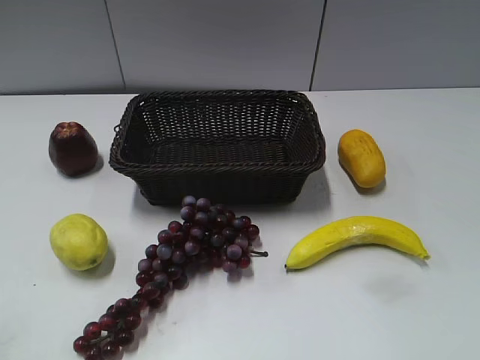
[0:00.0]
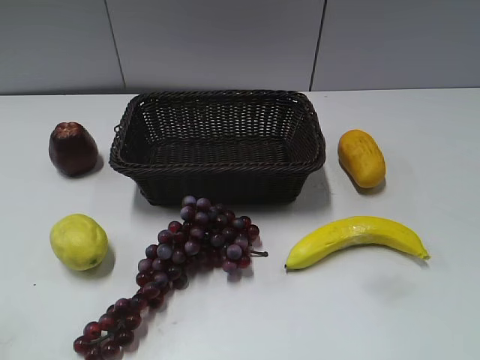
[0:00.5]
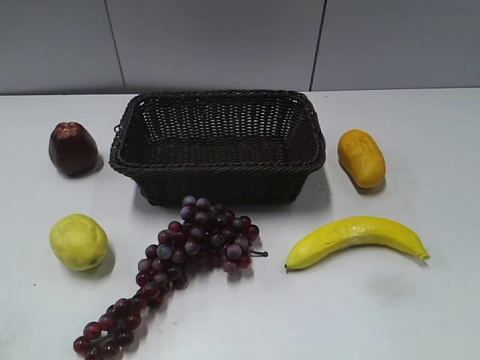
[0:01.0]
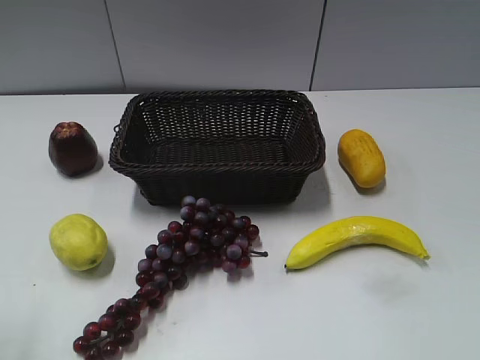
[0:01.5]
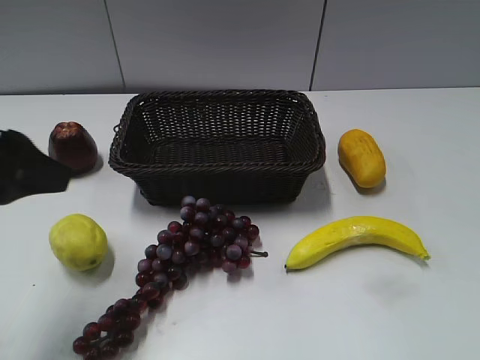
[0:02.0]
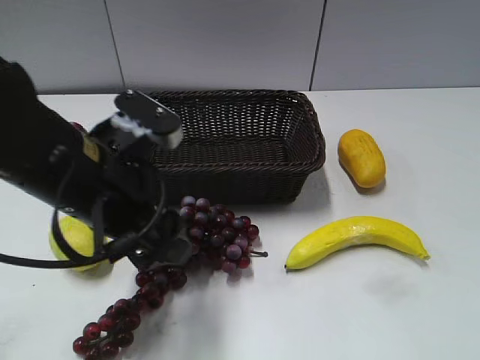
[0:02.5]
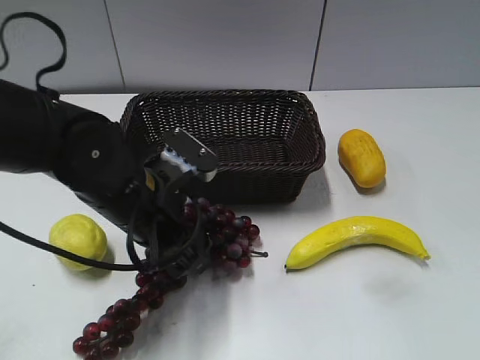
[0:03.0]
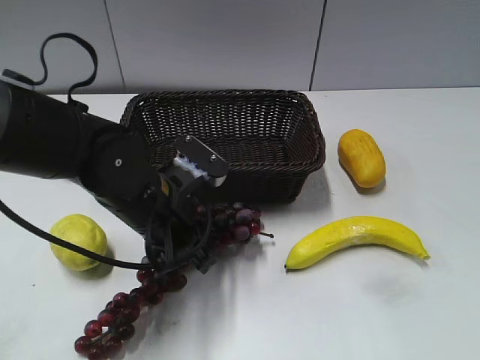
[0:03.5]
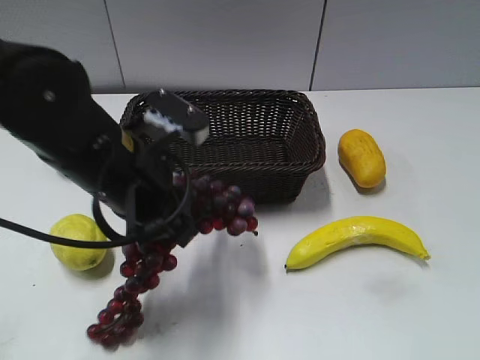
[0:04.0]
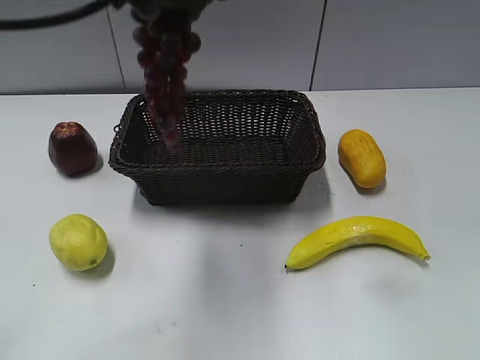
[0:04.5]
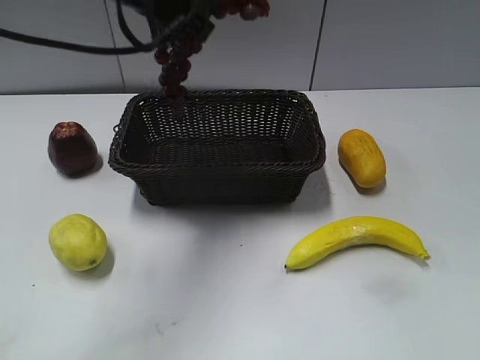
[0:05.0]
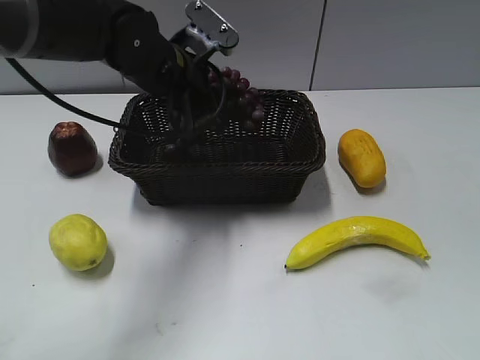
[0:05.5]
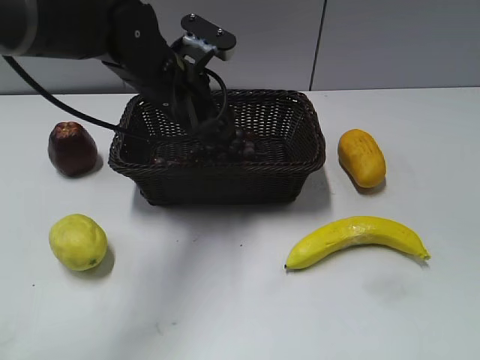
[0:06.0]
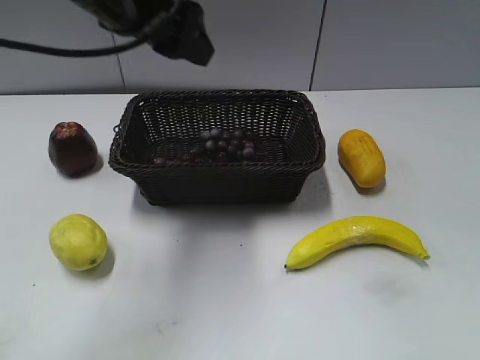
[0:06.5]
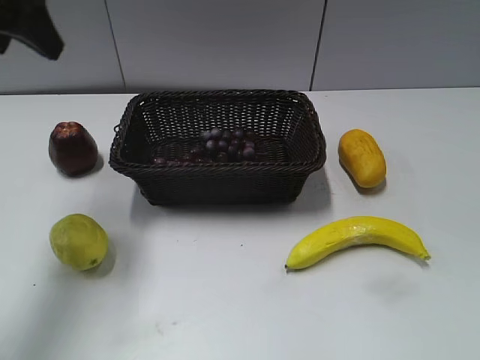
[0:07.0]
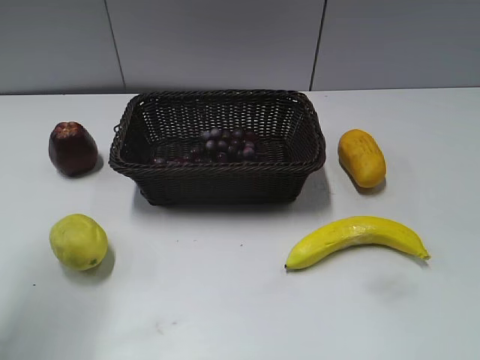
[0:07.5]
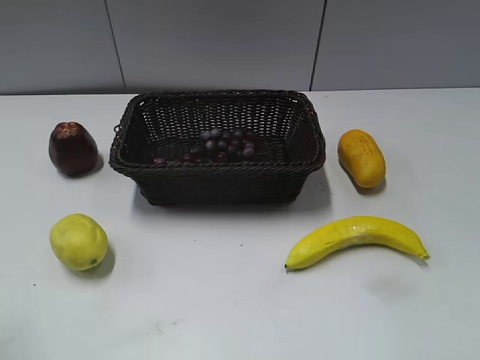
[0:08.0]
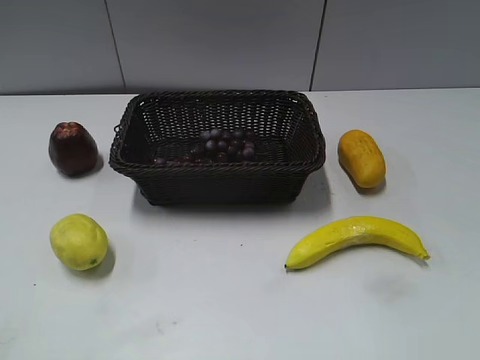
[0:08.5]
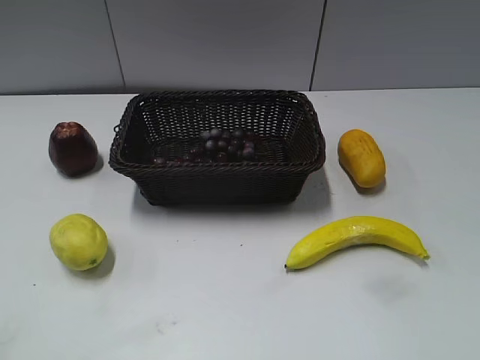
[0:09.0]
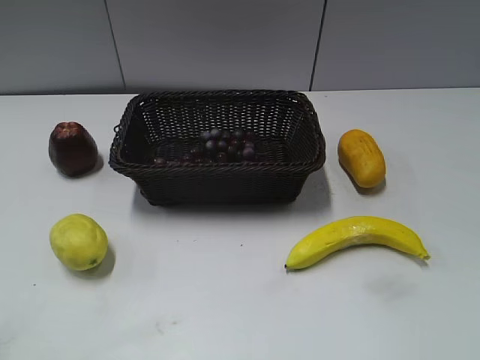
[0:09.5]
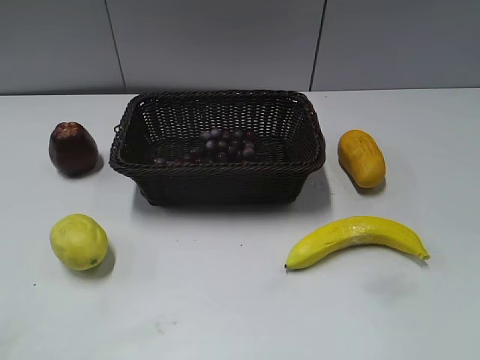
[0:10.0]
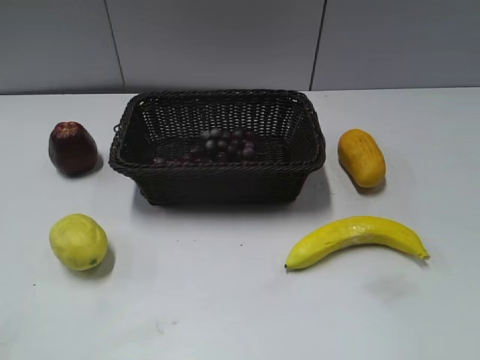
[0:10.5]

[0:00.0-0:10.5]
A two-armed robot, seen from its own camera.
Step, 0:02.0 to 0:03.0: Grasp the grape with left gripper.
Step, 0:04.0 to 0:05.5: Place the grape in the basket with left gripper.
0:02.0 to 0:04.0: The left gripper travels to the right, downward and forward by about 20 cm, and closes up.
0:04.0 to 0:06.5: The left gripper goes up and down, about 20 cm each way, reversing 2 times, and opens.
0:06.5 to 0:08.5: The left gripper shifts roughly 35 cm backward and to the left.

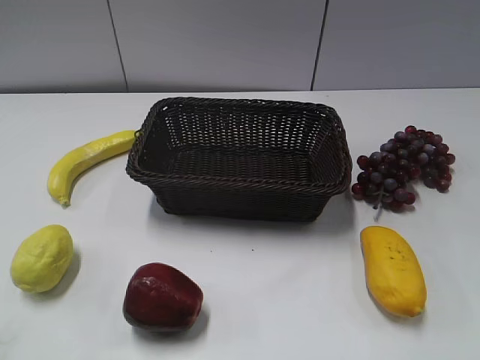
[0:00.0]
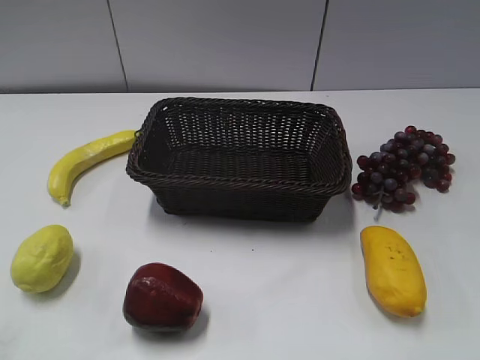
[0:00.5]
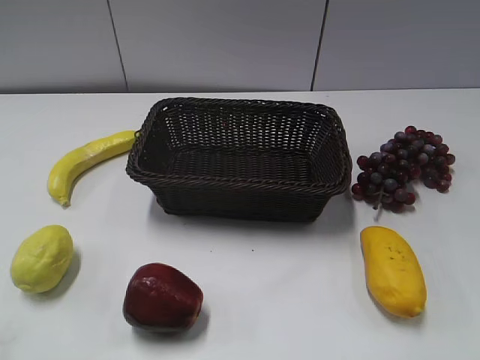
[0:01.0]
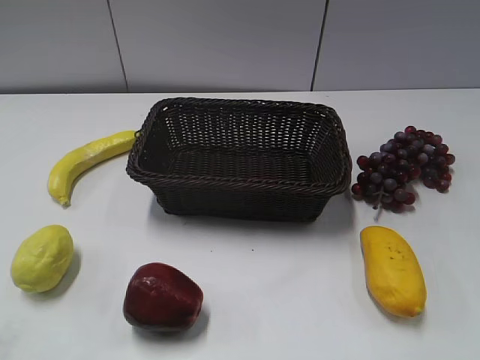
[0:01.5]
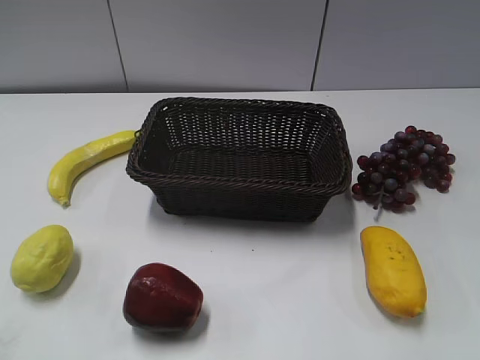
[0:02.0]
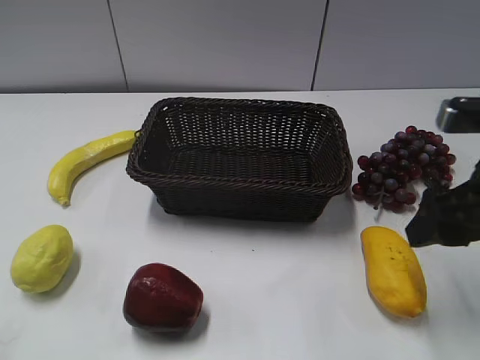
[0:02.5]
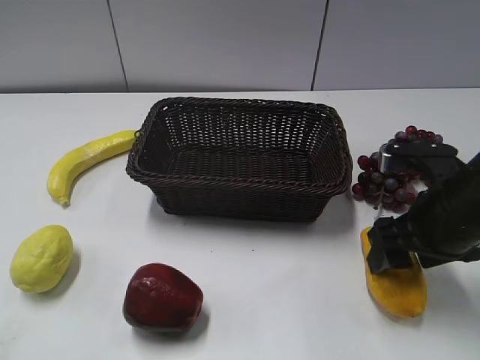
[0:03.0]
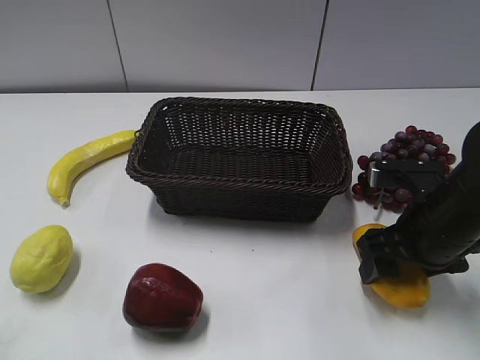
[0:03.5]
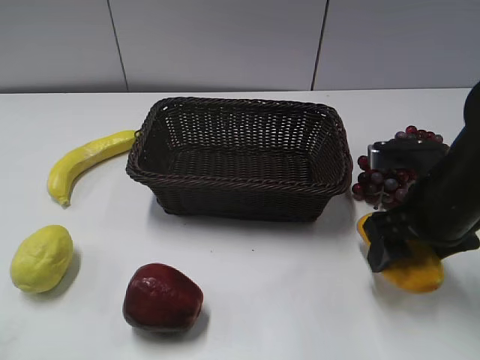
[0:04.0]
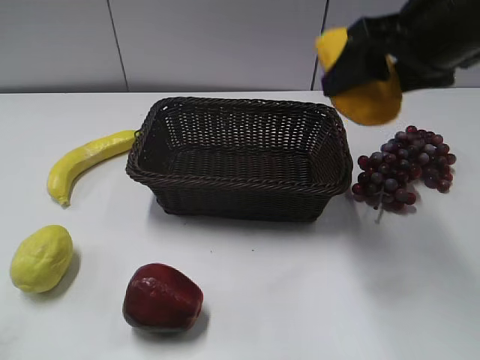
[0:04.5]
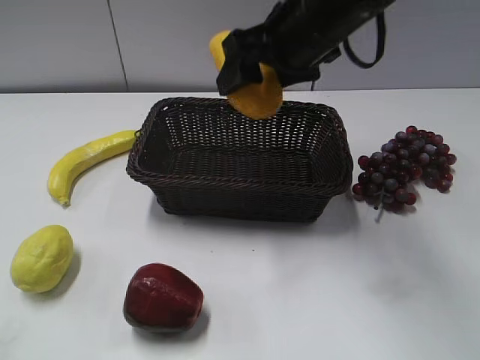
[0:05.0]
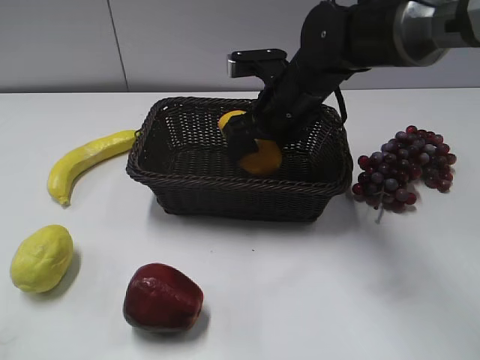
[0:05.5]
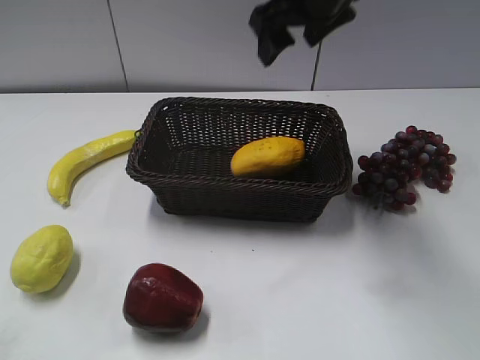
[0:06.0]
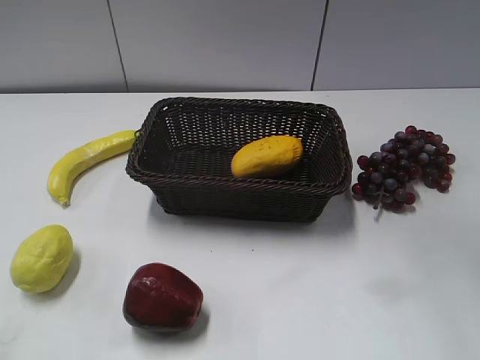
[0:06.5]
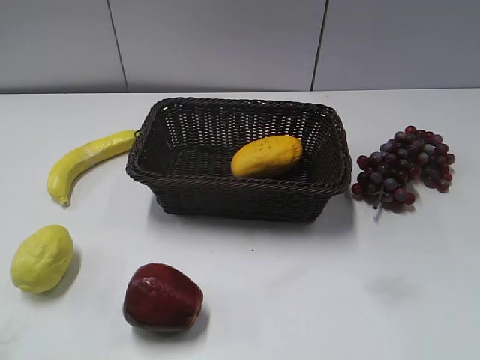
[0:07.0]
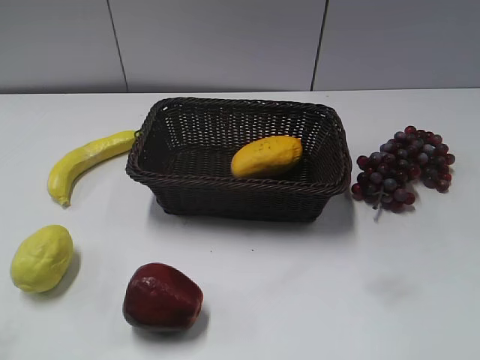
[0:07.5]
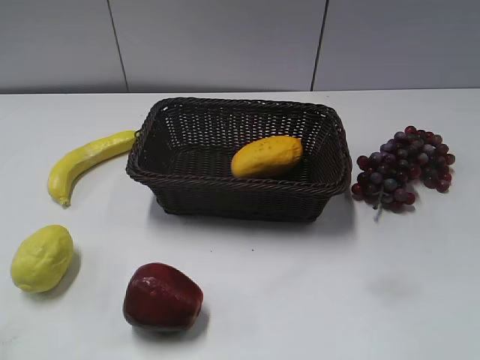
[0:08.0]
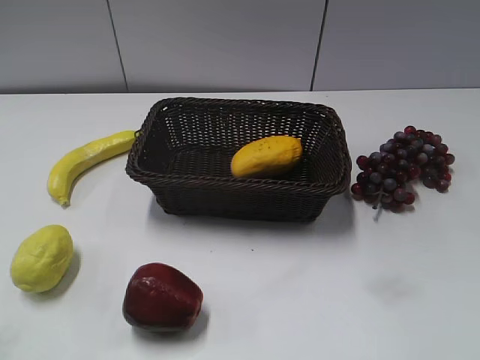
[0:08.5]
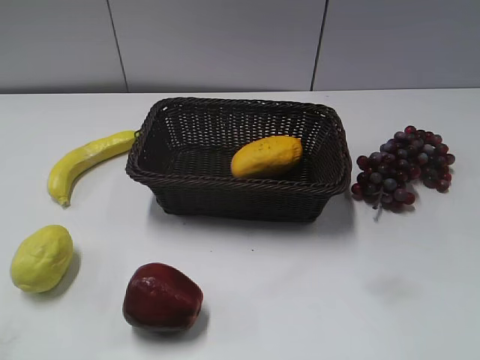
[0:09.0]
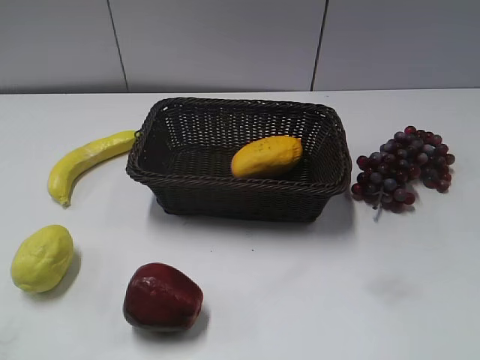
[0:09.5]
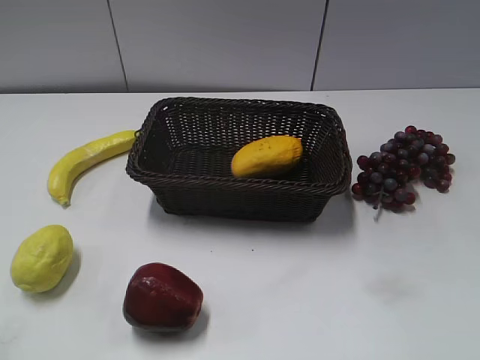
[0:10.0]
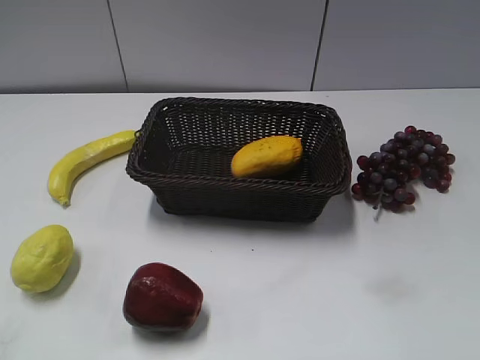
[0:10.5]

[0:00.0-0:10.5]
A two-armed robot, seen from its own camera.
Step, 0:02.5 to 0:03.5: Grasp the mango with right gripper.
Step, 0:04.0 to 0:05.5: Place the mango in the basket with right gripper.
0:02.0 to 0:04.0: The right gripper shifts approximately 20 cm downward, forward and to the left, and closes up.
0:04.0 to 0:06.5: The right gripper goes up and down, some 30 cm each way, reversing 2 times, and opens and closes again.

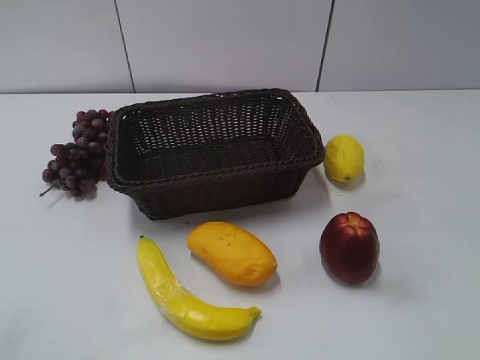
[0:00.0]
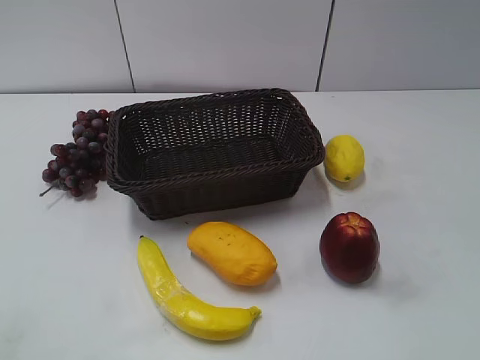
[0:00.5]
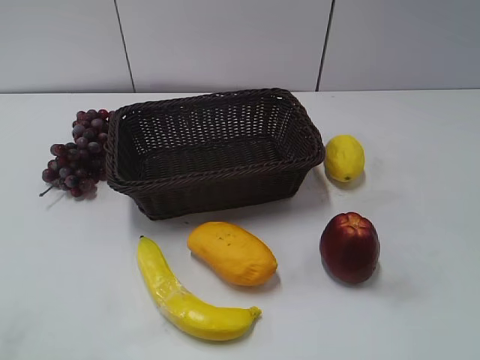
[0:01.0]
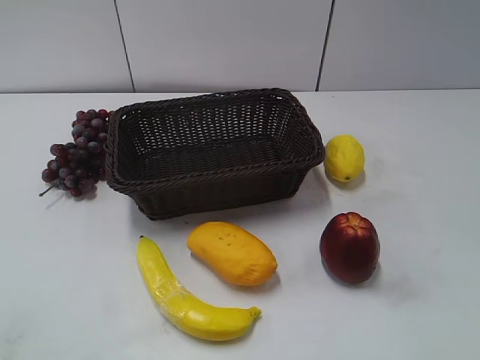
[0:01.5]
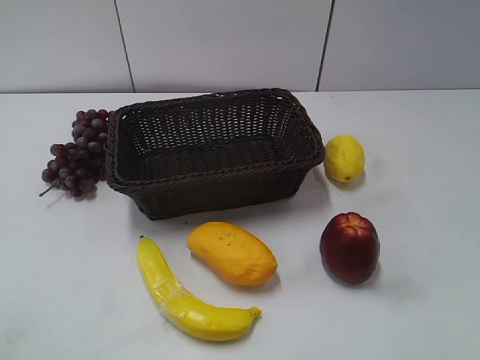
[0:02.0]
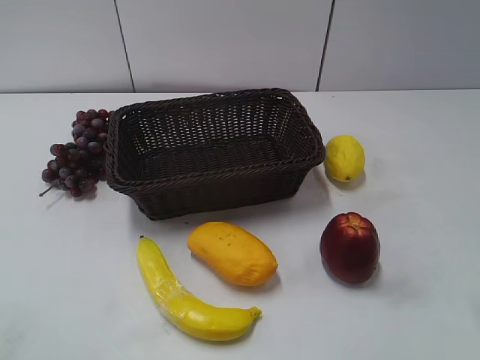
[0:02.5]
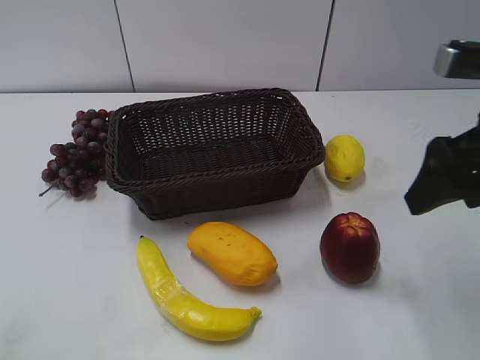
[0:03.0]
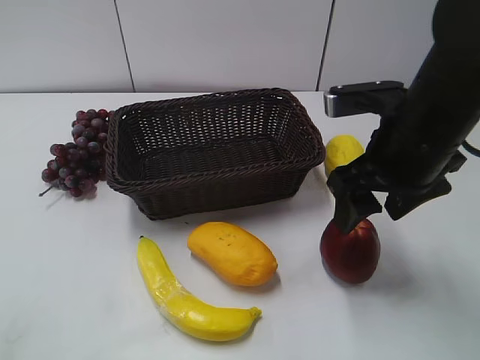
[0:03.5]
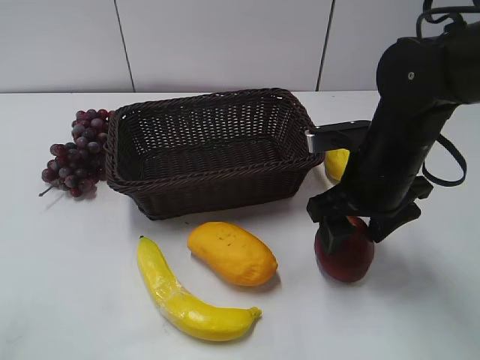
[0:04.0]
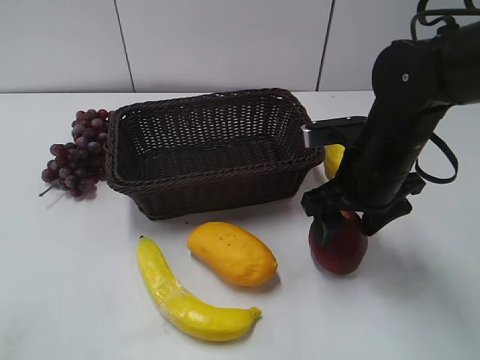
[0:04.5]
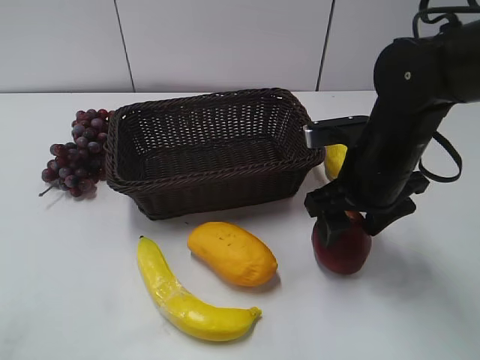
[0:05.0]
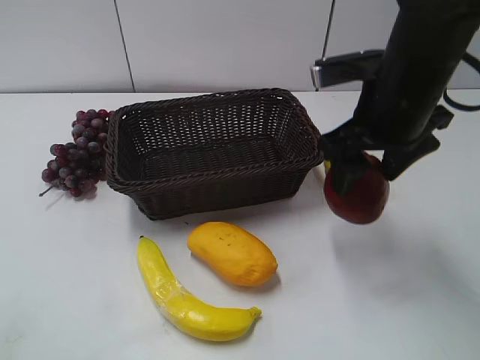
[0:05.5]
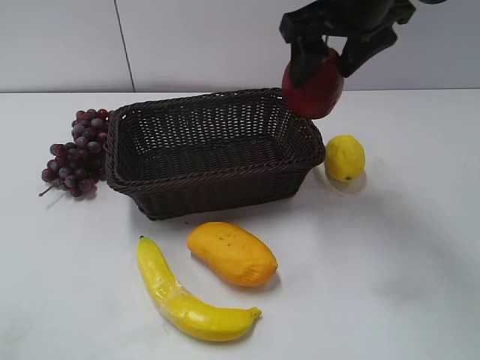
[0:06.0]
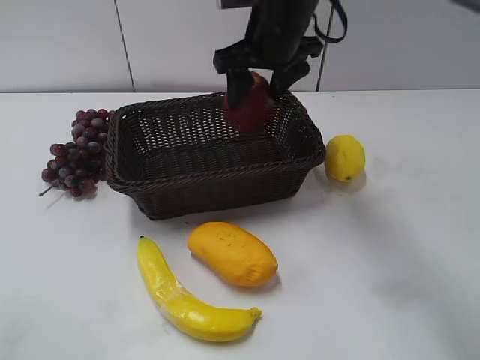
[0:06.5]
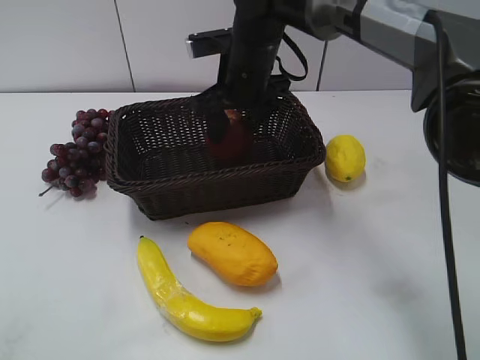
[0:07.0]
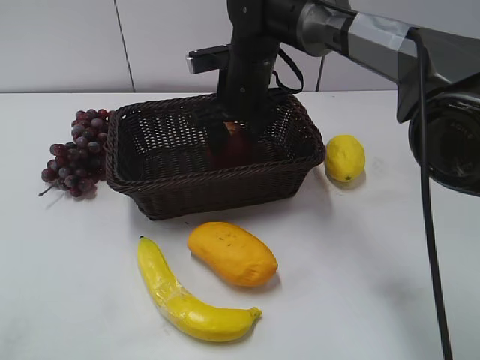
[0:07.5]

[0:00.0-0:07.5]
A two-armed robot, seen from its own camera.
Step, 0:03.0 to 0:03.5: Grasp the apple with right gripper.
Step, 0:04.5 to 0:07.5: Place the apple in the basket with right gripper.
0:02.0 to 0:04.0: The right gripper is displaced forward, to the left and downward by roughly 25 cm.
0:04.0 to 0:05.5: The right gripper goes about 10 cm upward.
0:05.5 to 0:07.5: The right gripper travels to the left, forward and downward by approximately 20 cm.
